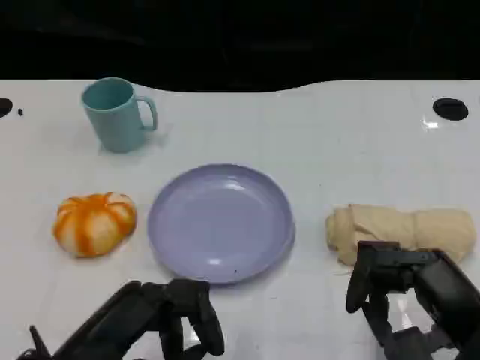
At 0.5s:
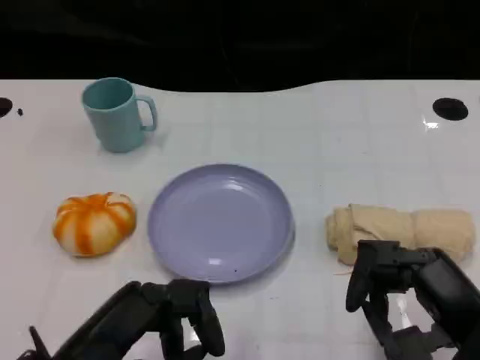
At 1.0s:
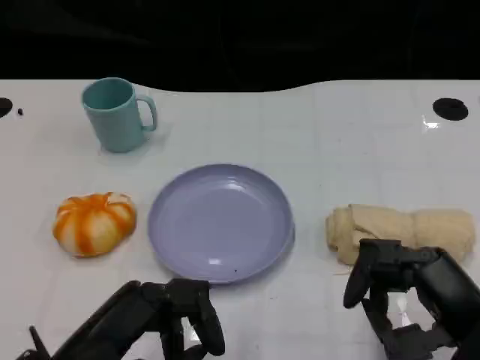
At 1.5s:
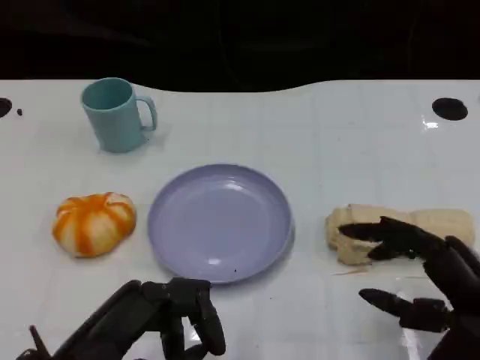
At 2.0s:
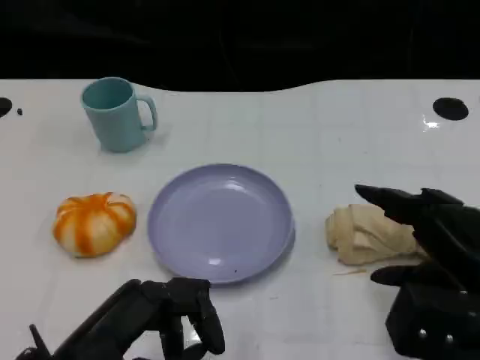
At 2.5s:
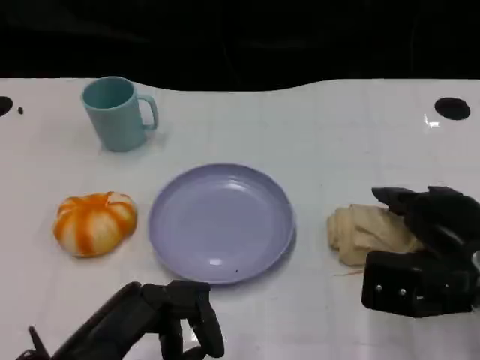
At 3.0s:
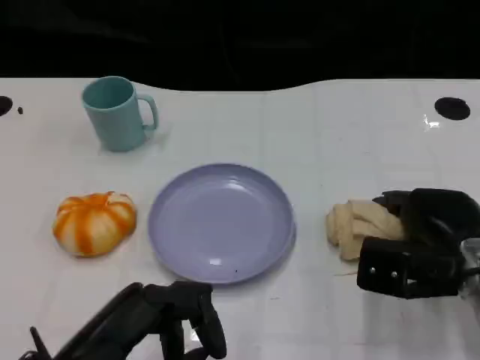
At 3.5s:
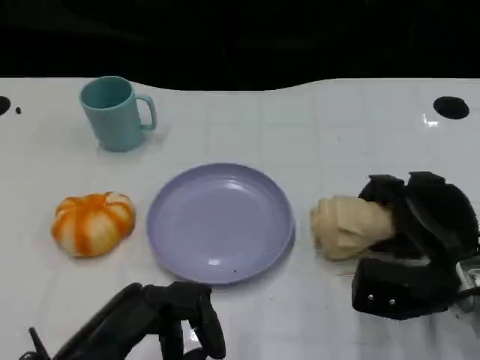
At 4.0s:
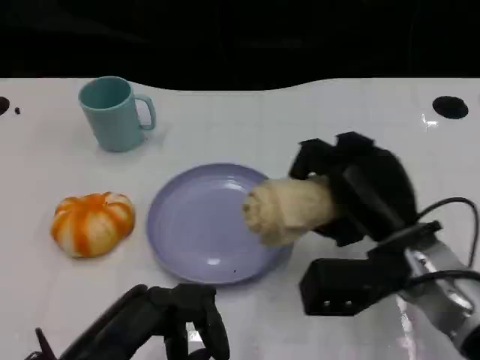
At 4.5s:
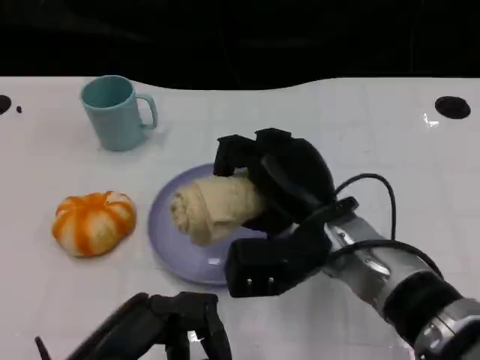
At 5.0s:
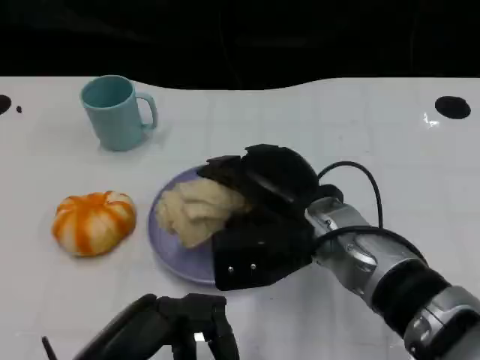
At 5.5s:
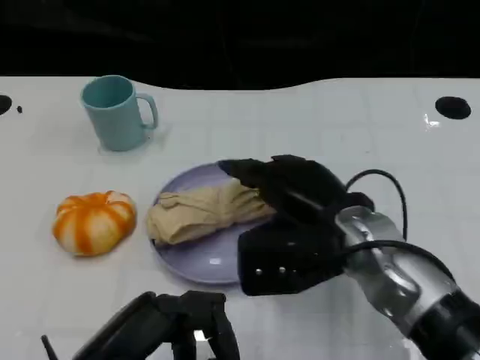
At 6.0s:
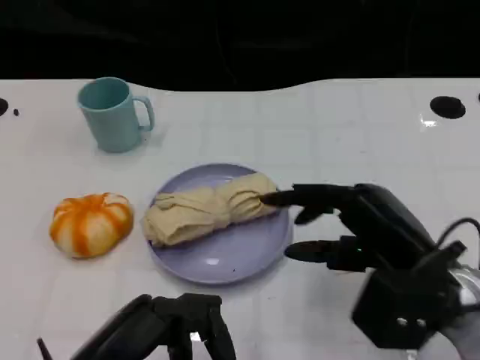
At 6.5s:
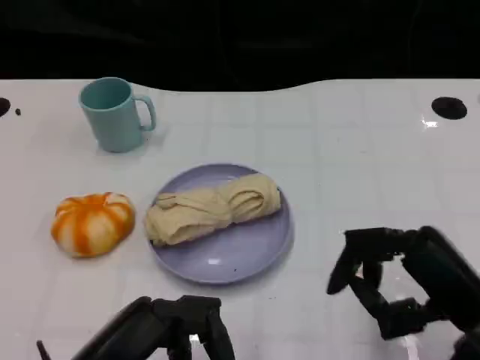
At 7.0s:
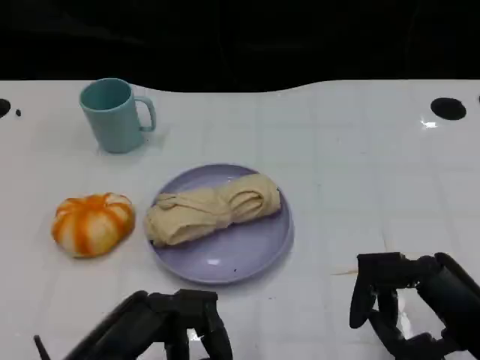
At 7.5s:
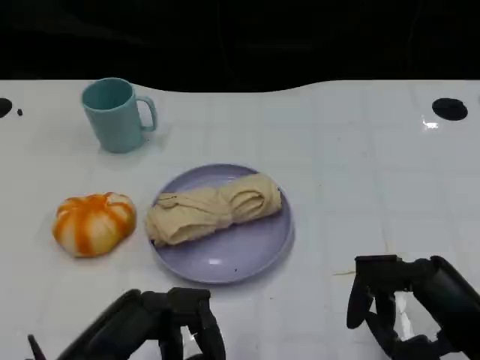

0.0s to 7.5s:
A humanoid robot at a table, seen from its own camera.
Task of the whole recording: Grasp the towel on the left side of the plate with the left hand and place it into the plate.
0.0s to 2.0s: The right hand changes place by roughly 5 cm.
2.0s to 4.0s: The right hand is displaced to the left and forward by some 10 cm.
5.5s to 7.5s: The right hand moves to the right and backward, some 15 cm.

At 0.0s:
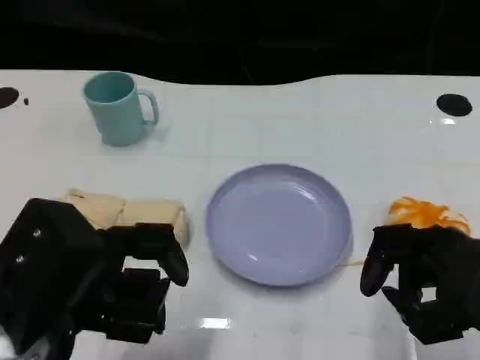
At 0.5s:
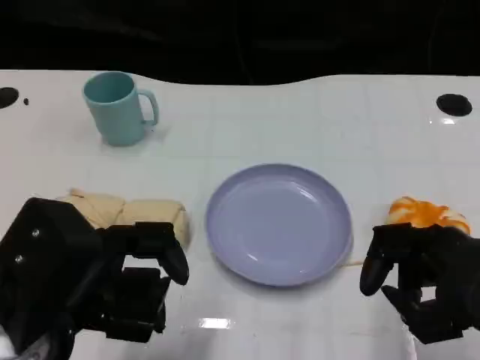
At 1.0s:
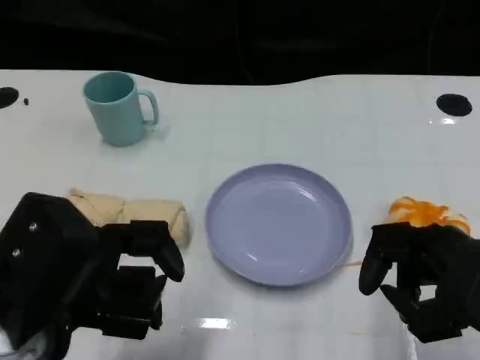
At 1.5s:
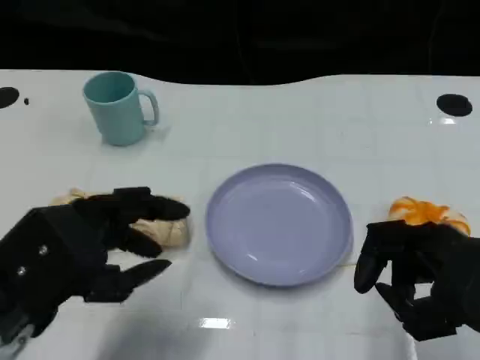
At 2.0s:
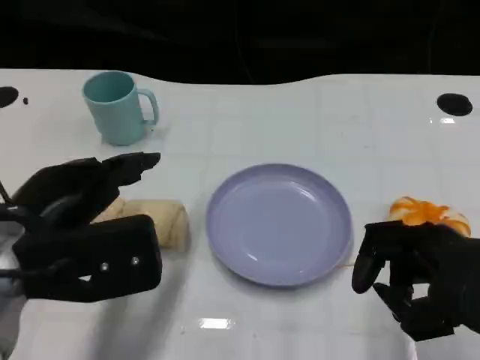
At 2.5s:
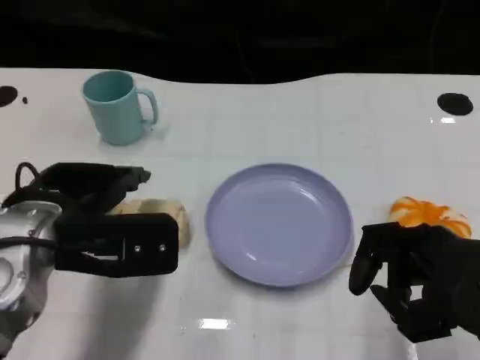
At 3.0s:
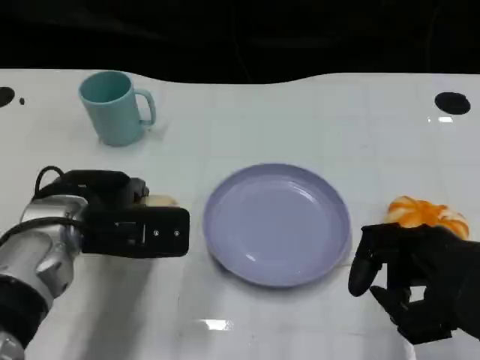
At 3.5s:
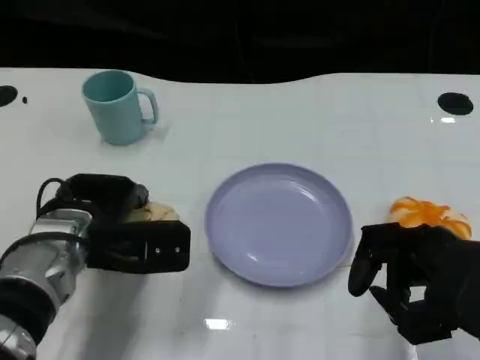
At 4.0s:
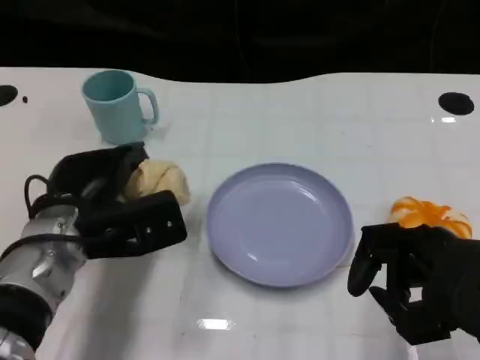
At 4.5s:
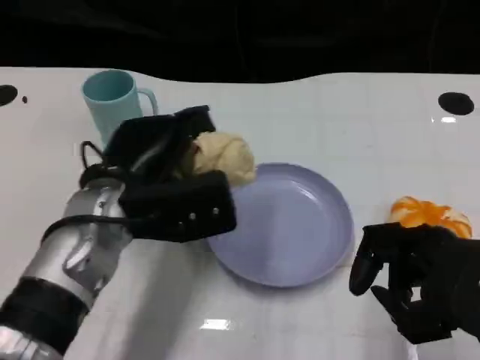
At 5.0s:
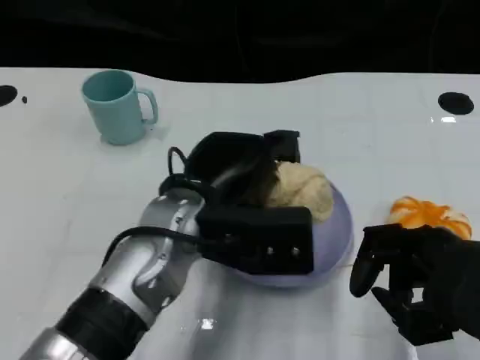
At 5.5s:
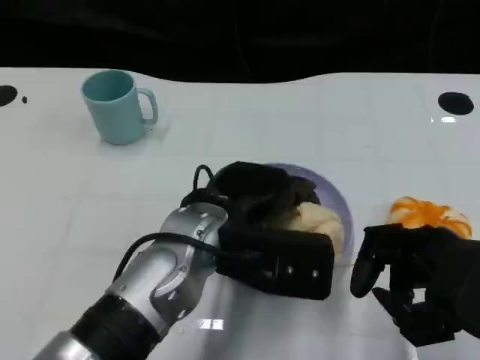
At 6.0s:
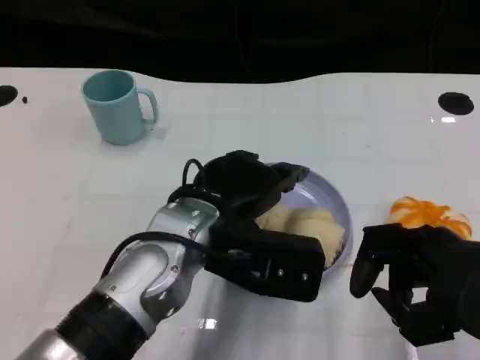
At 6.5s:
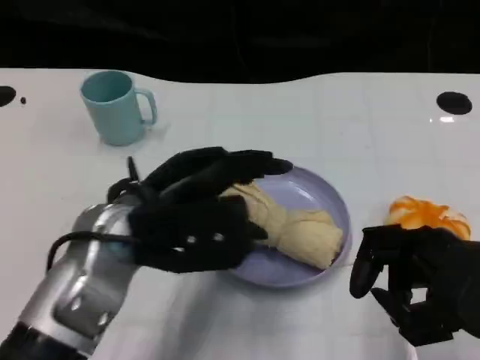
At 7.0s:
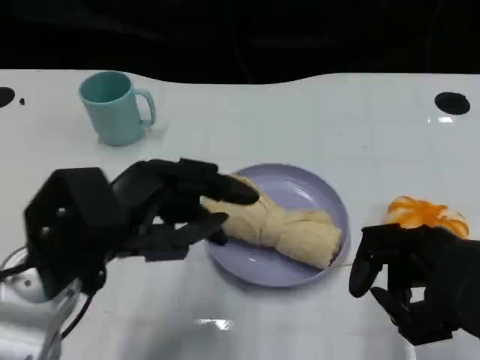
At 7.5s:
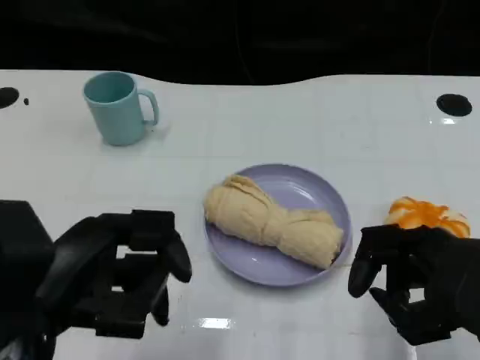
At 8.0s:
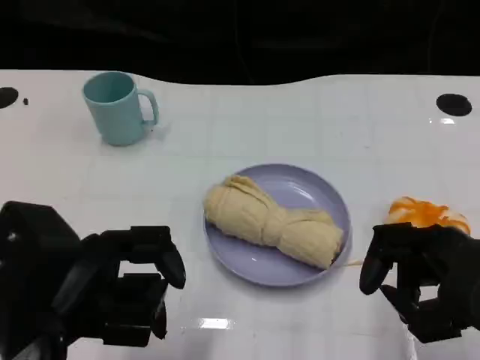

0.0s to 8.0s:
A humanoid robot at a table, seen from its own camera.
Task of the whole recording: Grasp the towel on the left side of the plate with the left hand and place it into the plate.
0.0s to 2.0s: The left hand shifts about 5 cm forward.
2.0s to 4.0s: The left hand goes some 10 cm downward and forward.
4.0s to 6.0s: The left hand heads to the right and upward, covering roughly 15 cm.
6.0s to 8.0s: The left hand travels to the left and backward by approximately 15 cm.

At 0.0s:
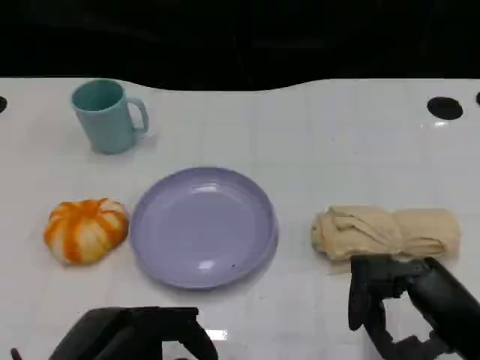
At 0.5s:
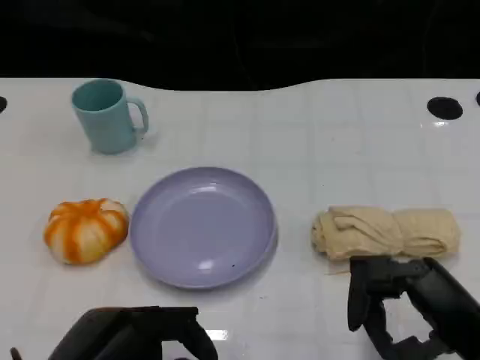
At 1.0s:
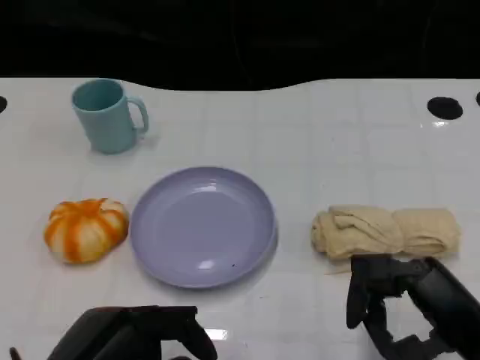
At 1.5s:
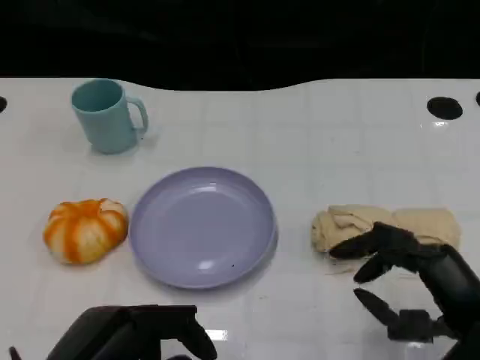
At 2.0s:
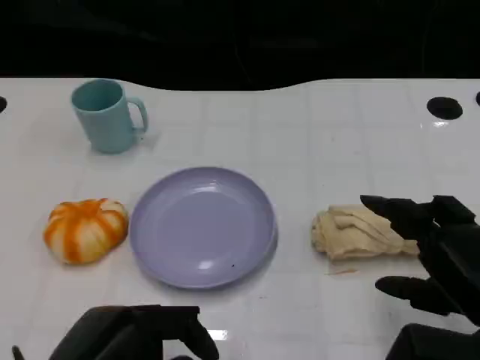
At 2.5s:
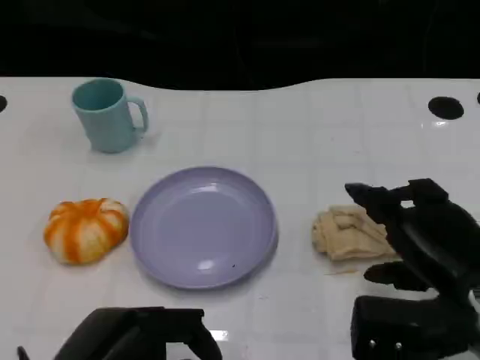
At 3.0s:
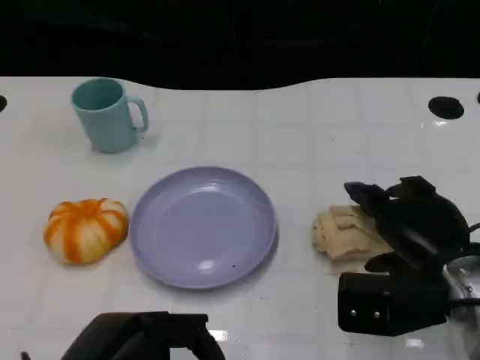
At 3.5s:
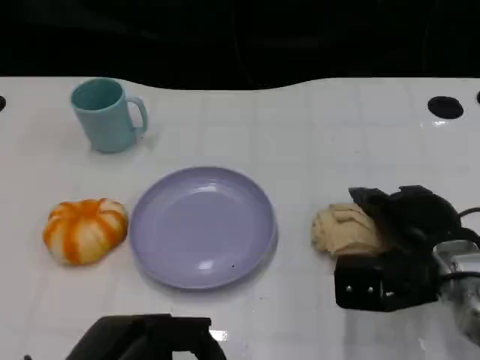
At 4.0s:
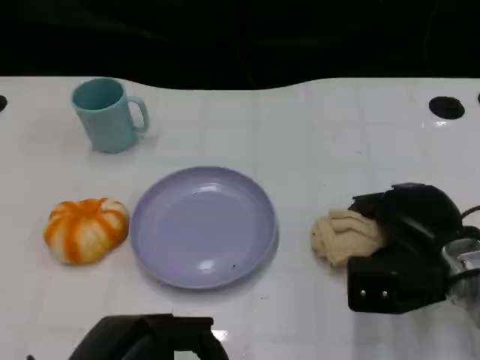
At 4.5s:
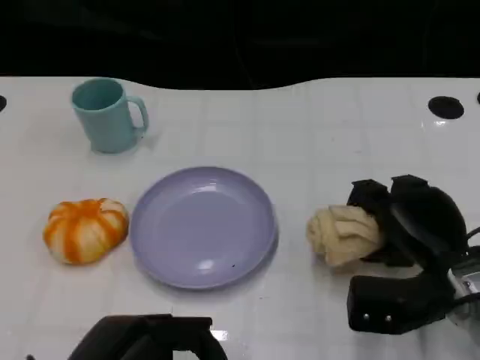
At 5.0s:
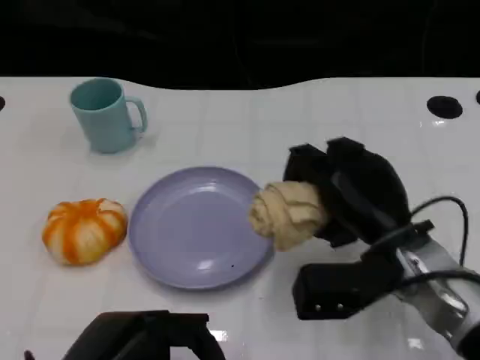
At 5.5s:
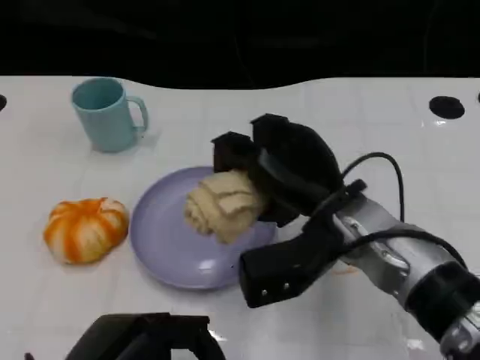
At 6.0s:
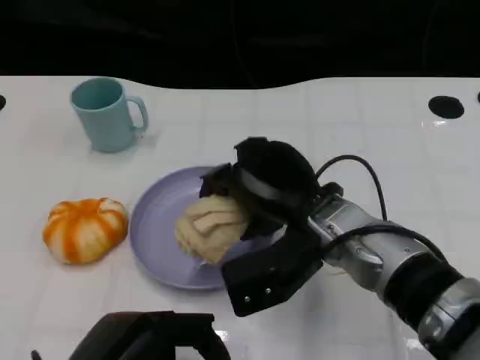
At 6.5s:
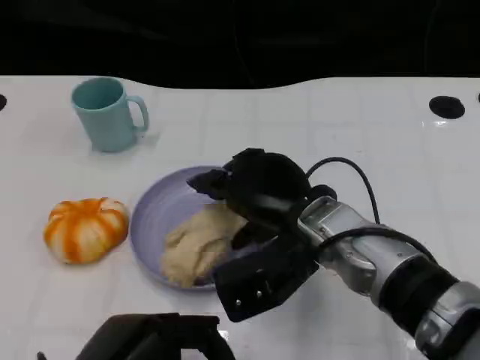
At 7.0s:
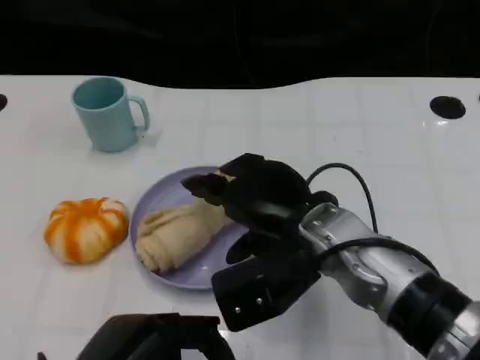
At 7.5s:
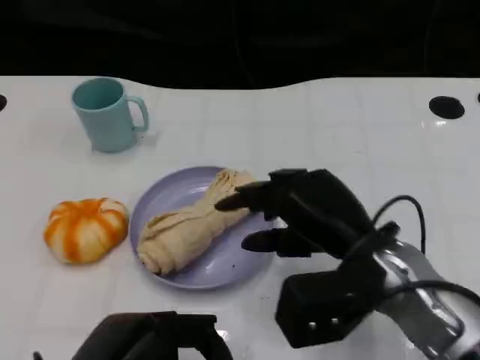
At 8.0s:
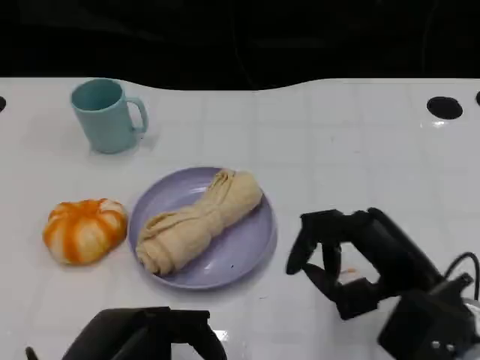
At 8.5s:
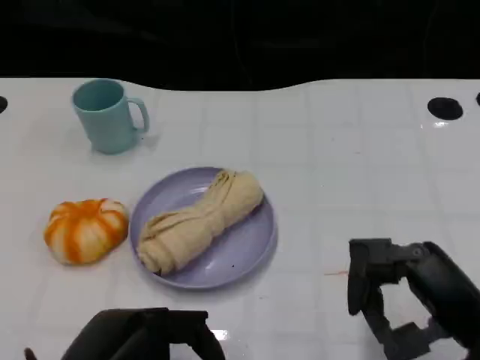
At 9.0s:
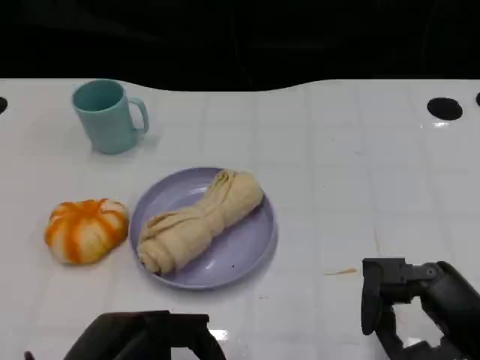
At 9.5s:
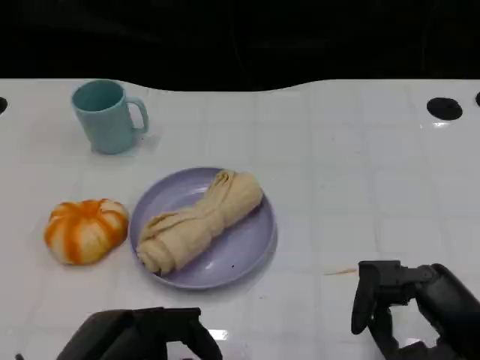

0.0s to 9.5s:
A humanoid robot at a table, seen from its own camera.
Task of the whole recording: Grasp the towel on the left side of the plate with the left hand and place it into the plate.
2.0s to 4.0s: The right hand is displaced forward and downward by approximately 10 cm.
4.0s to 5.5s: The right hand goes some 15 cm to the left and upward.
5.5s to 7.5s: The right hand shifts by about 5 cm.
7.5s to 9.5s: The right hand goes about 15 cm to the right and backward.
